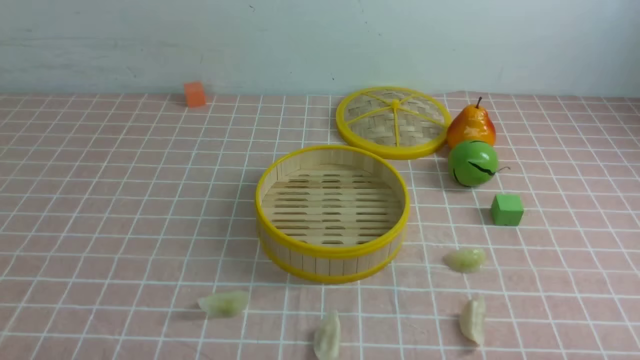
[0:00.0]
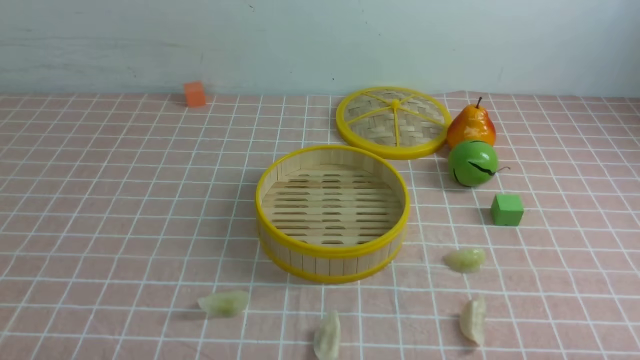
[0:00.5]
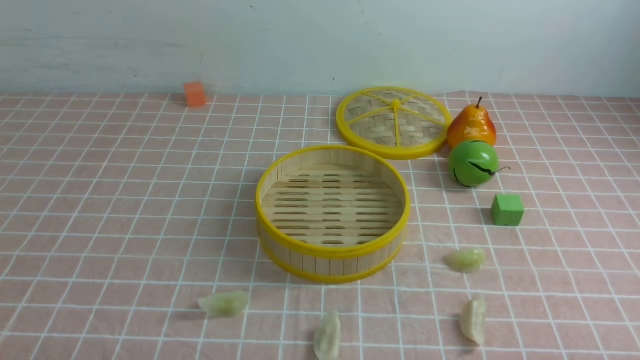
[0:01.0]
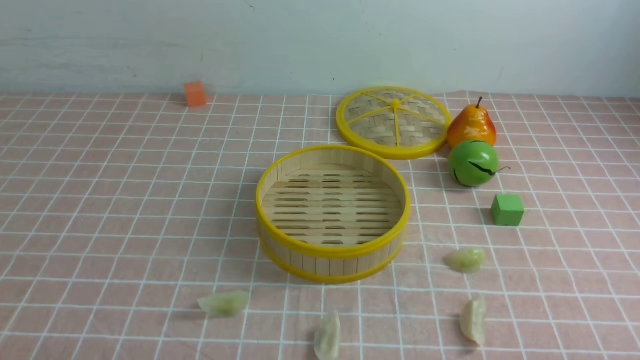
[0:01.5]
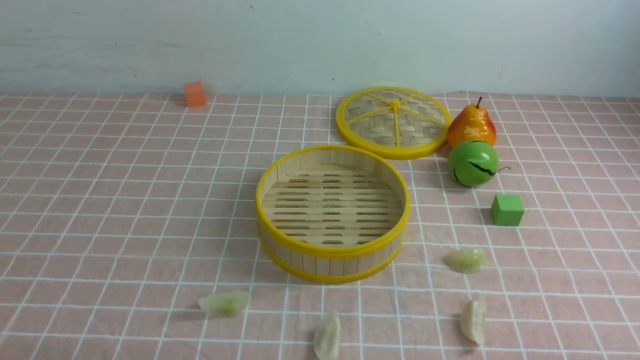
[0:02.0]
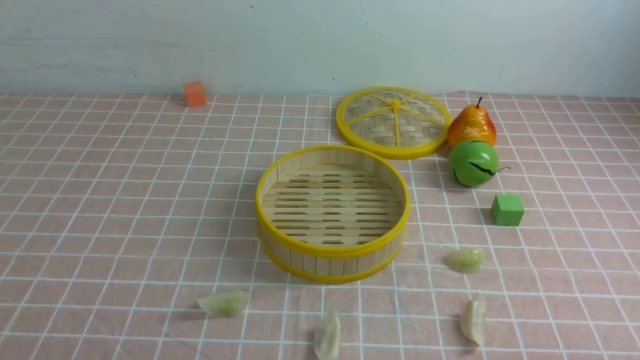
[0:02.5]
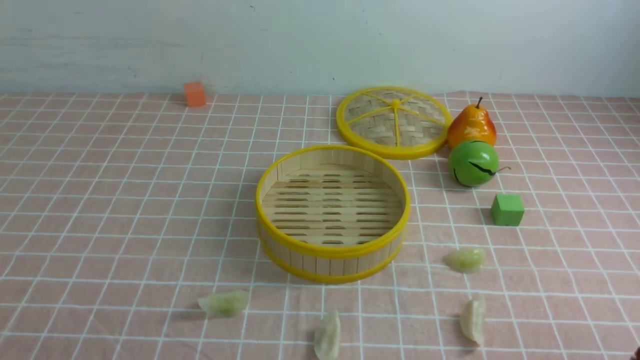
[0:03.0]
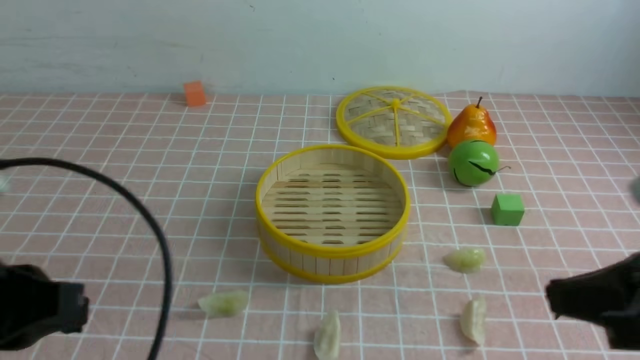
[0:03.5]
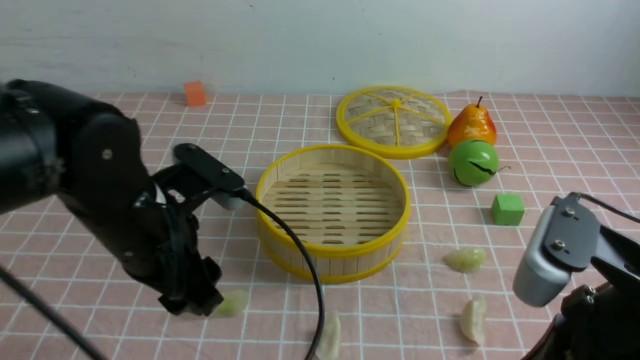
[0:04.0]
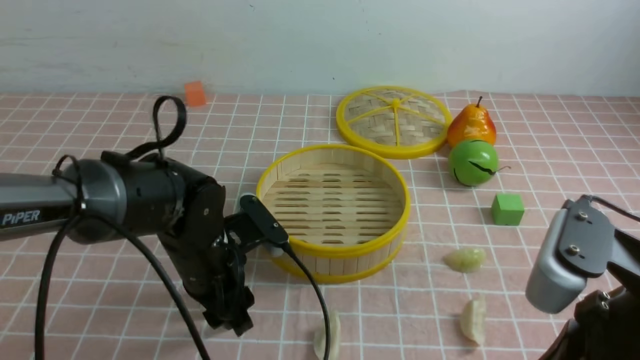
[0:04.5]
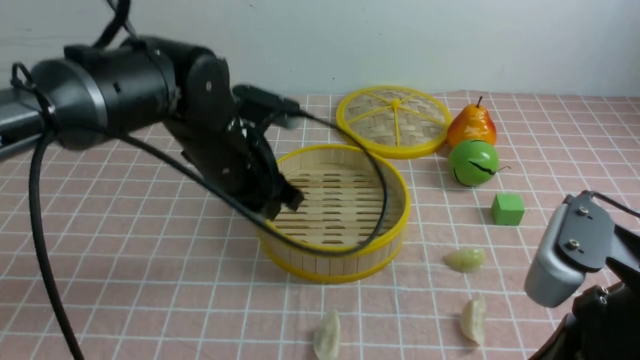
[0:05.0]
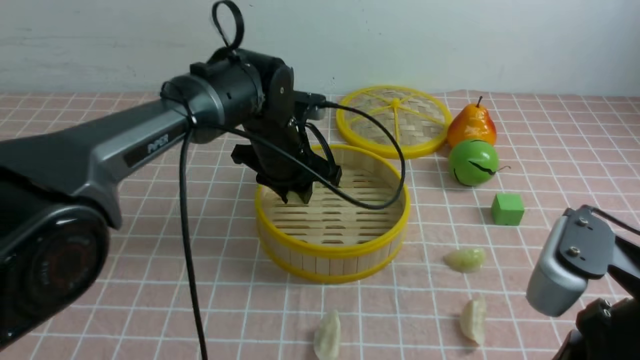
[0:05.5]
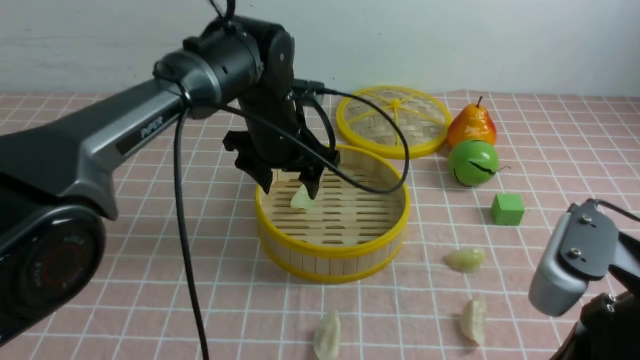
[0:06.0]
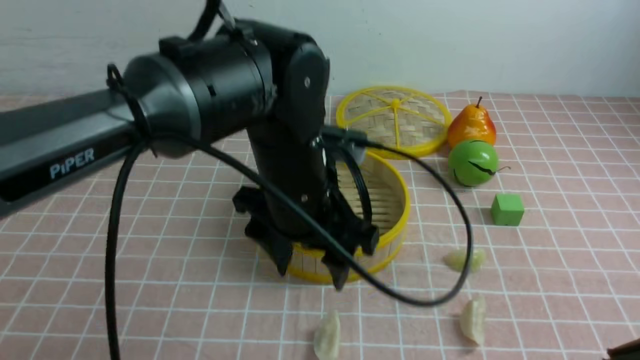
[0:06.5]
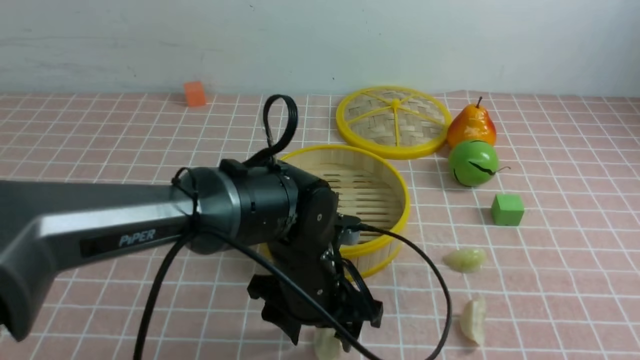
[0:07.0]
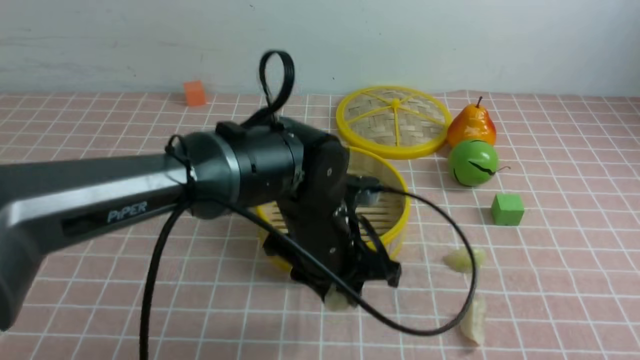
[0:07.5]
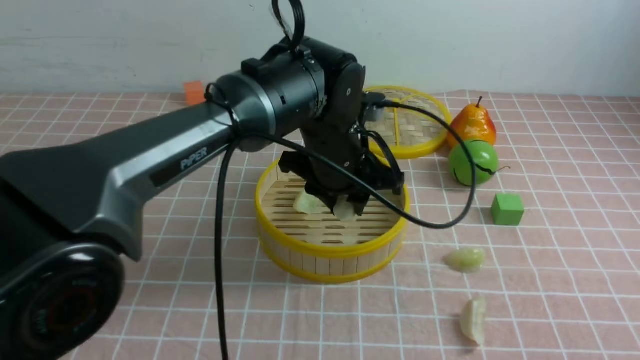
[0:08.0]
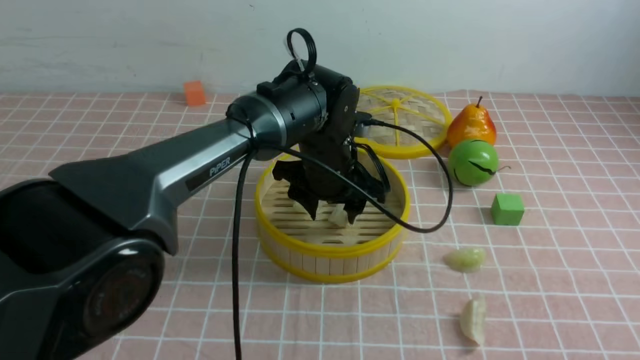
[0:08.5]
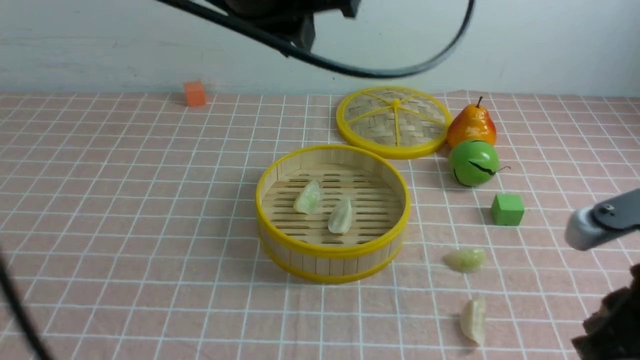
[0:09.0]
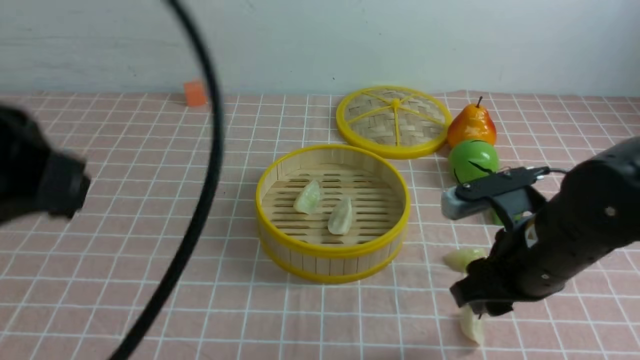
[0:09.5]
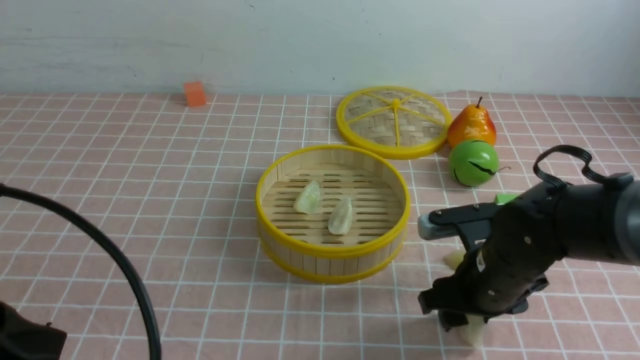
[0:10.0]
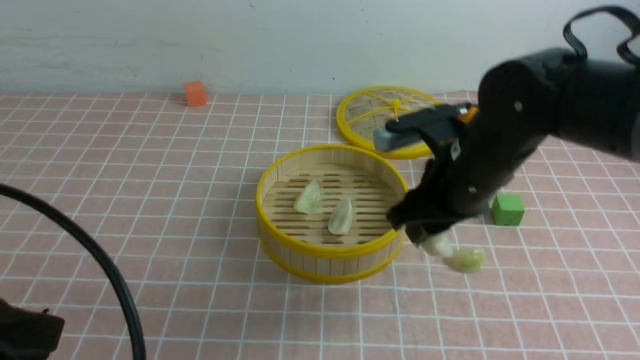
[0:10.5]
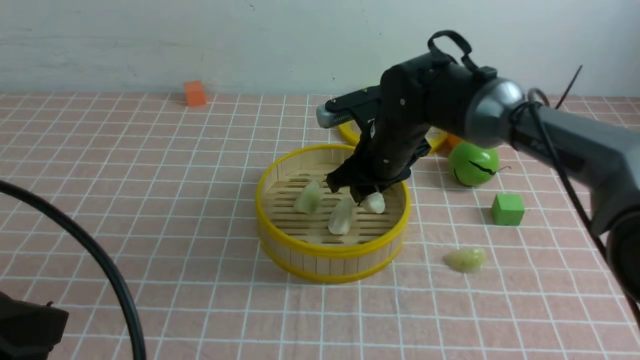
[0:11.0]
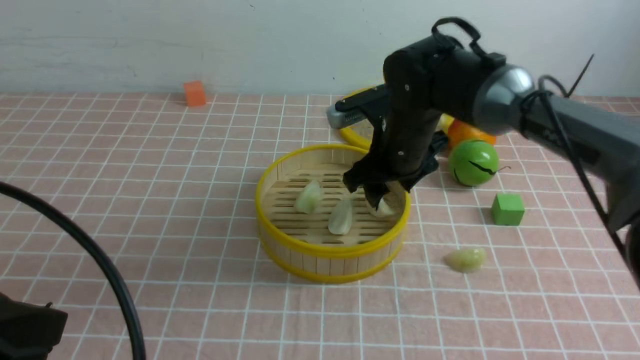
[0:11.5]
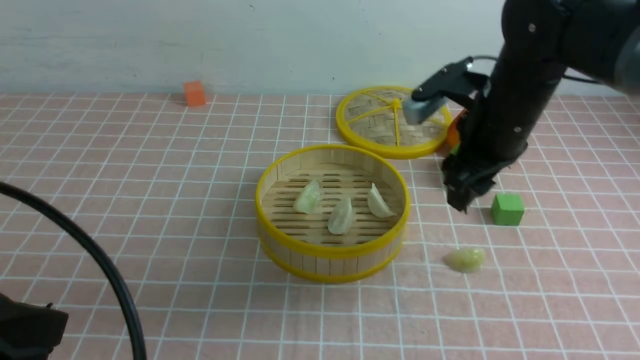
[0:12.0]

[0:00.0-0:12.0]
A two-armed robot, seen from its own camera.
Task of the whole recording: put the dumplings into the steamer on the table with the pink tablecloth.
Step, 0:00.0 to 0:04.5: use the left arm to grab a dumpling.
Step, 0:05.0 to 0:06.0: use the left arm to put the dumpling into the steamer.
Step, 0:06.5 to 0:07.0: use the left arm to grab a dumpling.
Step, 0:07.5 to 0:08.5: use the left arm to put the dumpling into the steamer.
Step, 0:09.0 to 0:10.0: use the right arm to grab a dumpling.
Step, 0:10.5 to 0:11.5: use the right arm to put the dumpling into the steamer.
0:02.0 to 0:04.0: The right gripper travels upward, to the left and forward by some 20 cm, and closes. Meanwhile the left gripper is displaced forward, to the right and upward by some 25 cm, and closes, then opens again.
0:04.0 to 0:06.0: The left gripper shifts about 20 cm forward and to the right.
0:06.0 to 0:08.0: The right gripper travels backward and to the right by approximately 10 cm, while the left gripper heads to the right and backward, covering approximately 10 cm, and closes.
0:08.0 to 0:10.0: The right gripper is displaced forward and downward by roughly 30 cm, and opens; the left gripper goes approximately 35 cm backward and to the left, and closes its fingers.
0:10.0 to 0:12.0: The right gripper travels upward and forward by some 15 cm, and closes, then reopens.

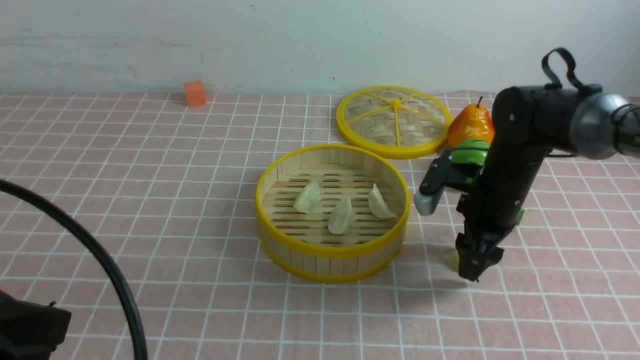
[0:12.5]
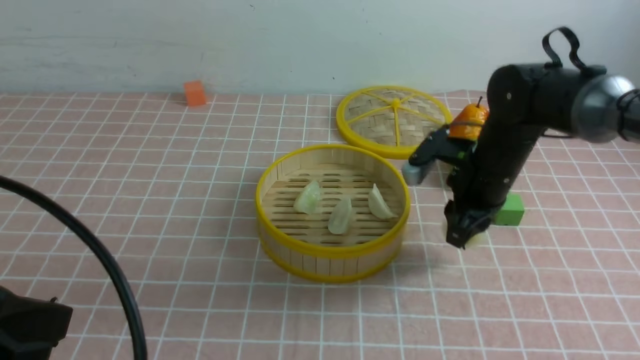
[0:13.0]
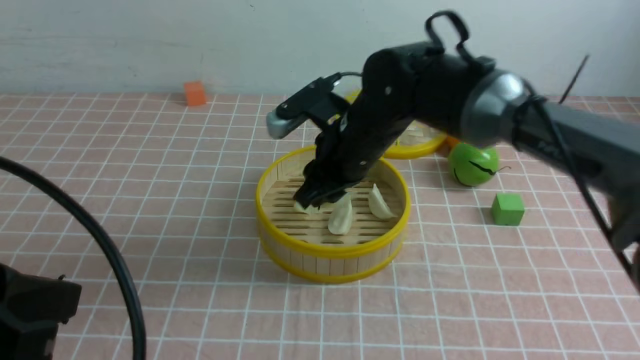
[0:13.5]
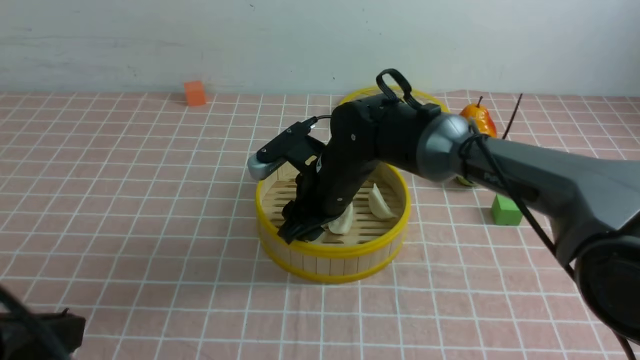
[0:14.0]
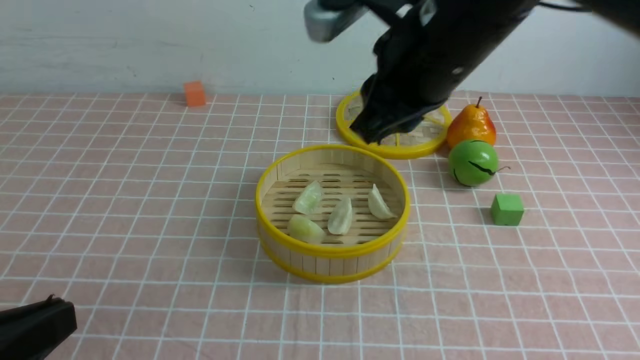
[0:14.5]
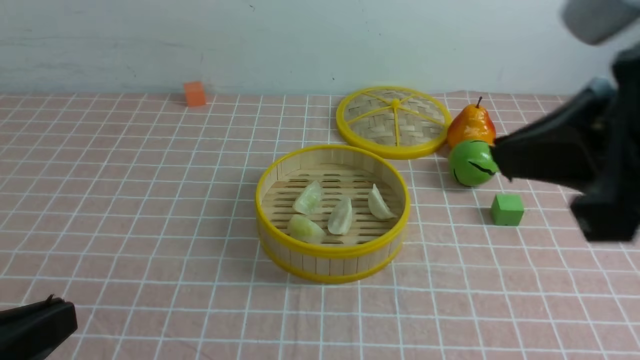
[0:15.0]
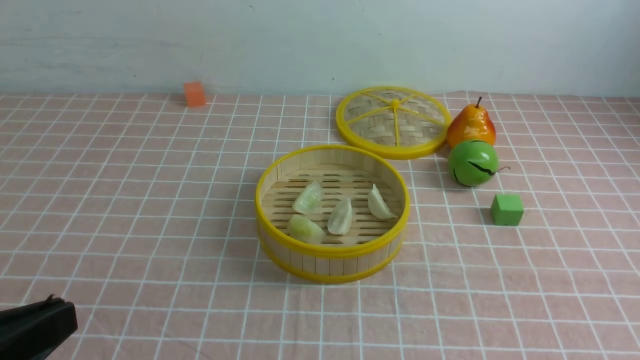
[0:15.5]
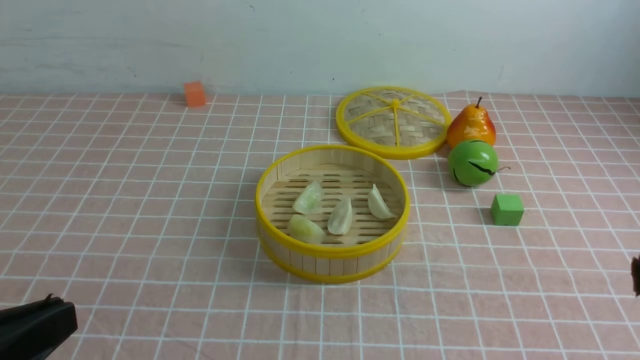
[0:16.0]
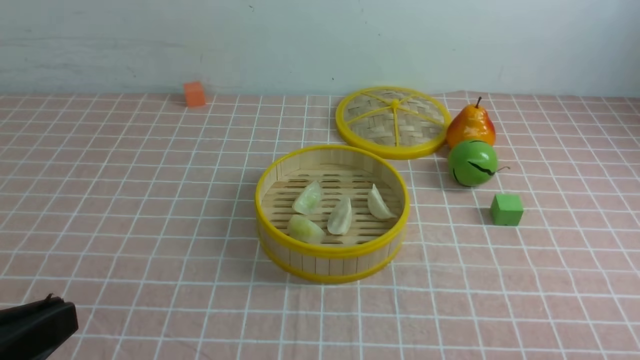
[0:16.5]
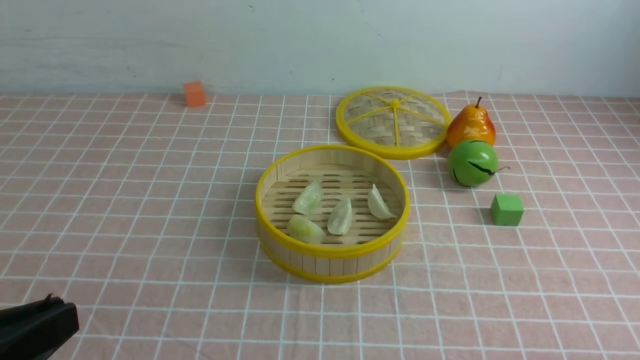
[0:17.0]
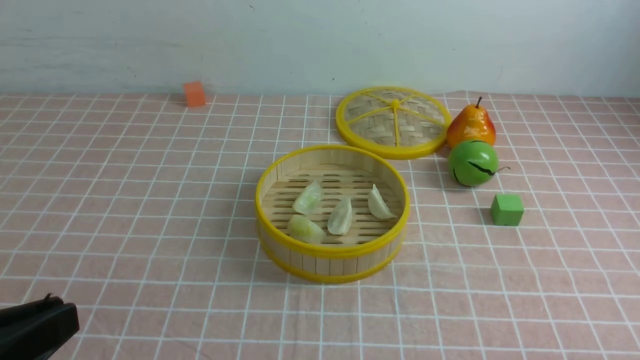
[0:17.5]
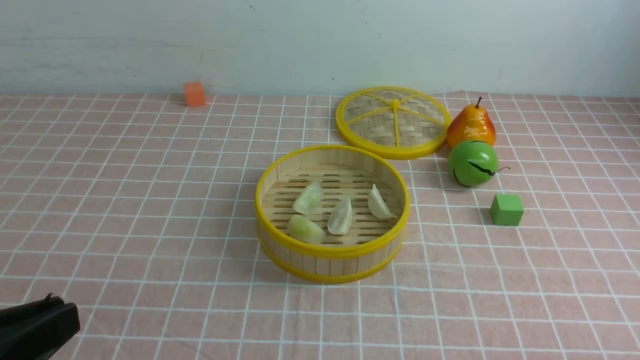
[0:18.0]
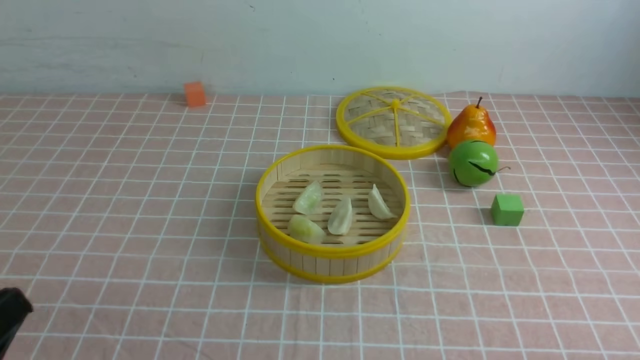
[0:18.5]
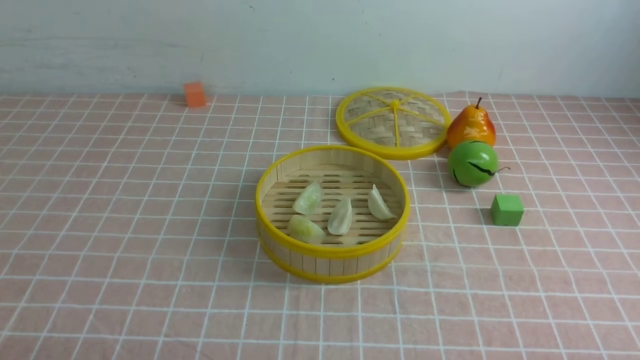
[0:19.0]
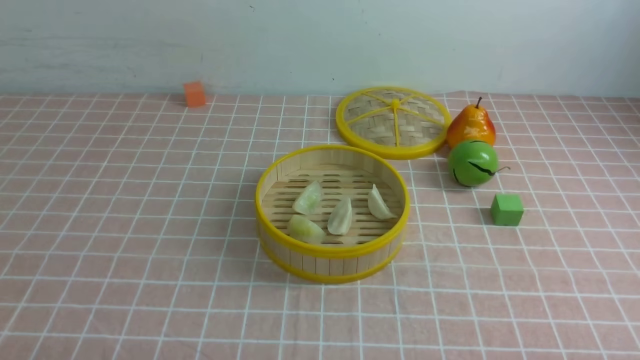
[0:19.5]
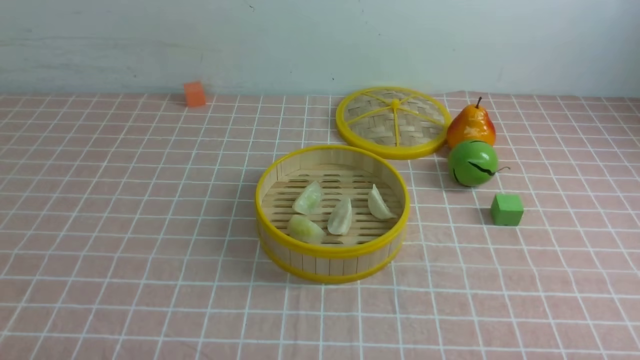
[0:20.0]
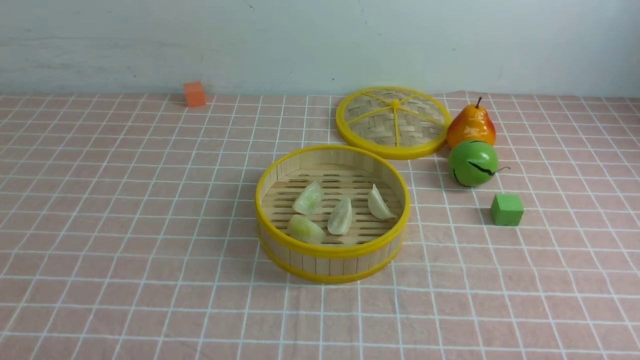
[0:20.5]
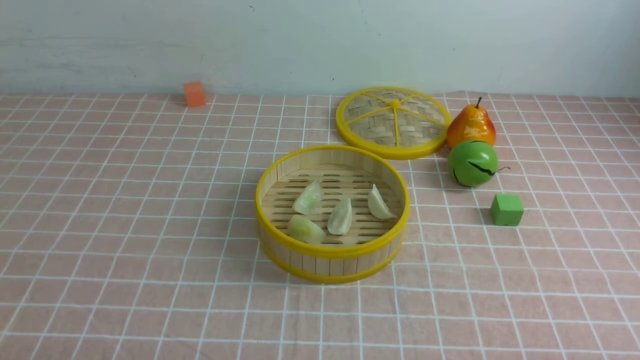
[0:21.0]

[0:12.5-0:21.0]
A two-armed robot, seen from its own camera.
Task of the whole recording: put the dumplings into the steamer on the table with the pink tablecloth.
Step, 0:13.0 to 0:14.0: use the right arm to put the dumpling into the steamer.
0:12.5 to 0:14.5: The right gripper heads upward, to the left and backward, covering some 25 cm, and closes; the left gripper moves downward, roughly 5 cm.
0:14.5 to 0:16.5: The right gripper heads backward, to the right and downward, covering about 40 cm, and closes up.
0:16.5 to 0:19.0: The left gripper goes some 10 cm downward.
